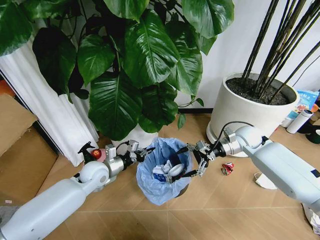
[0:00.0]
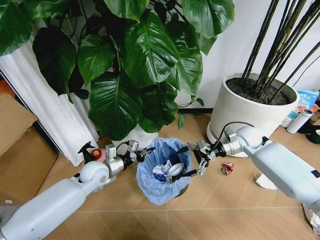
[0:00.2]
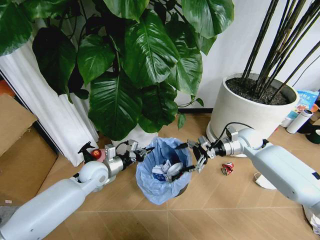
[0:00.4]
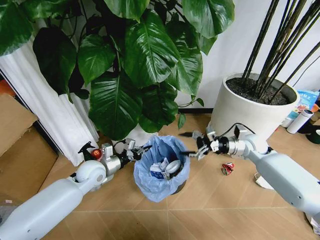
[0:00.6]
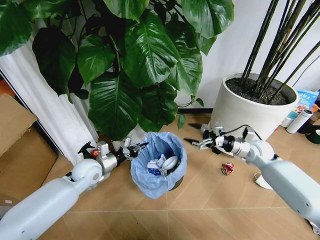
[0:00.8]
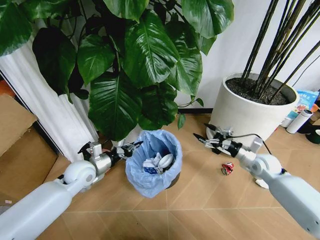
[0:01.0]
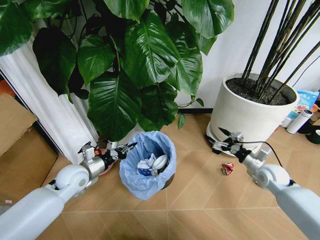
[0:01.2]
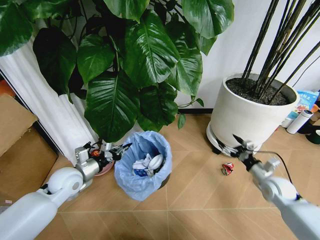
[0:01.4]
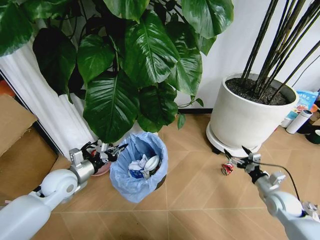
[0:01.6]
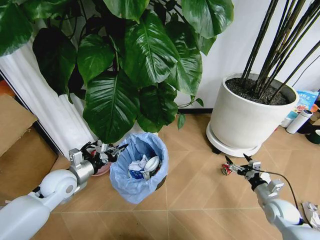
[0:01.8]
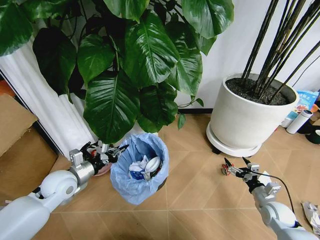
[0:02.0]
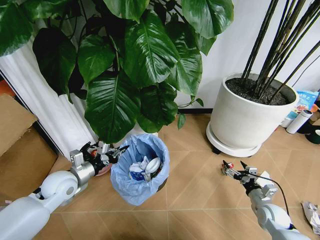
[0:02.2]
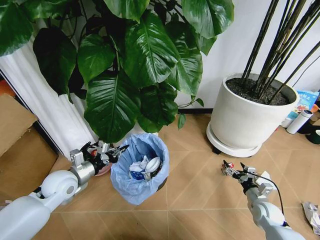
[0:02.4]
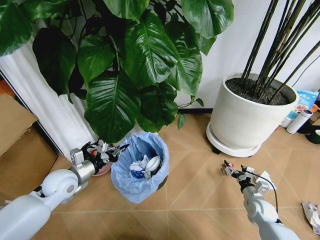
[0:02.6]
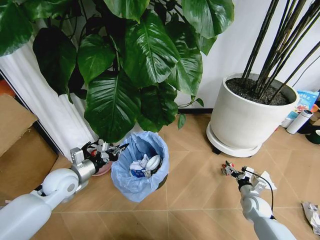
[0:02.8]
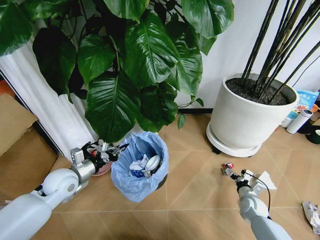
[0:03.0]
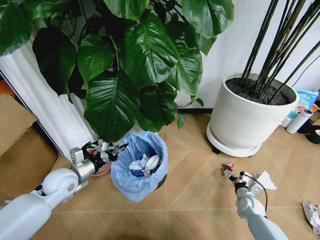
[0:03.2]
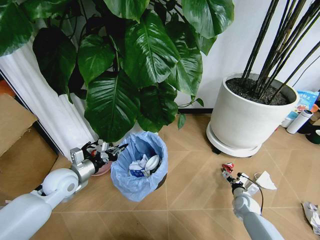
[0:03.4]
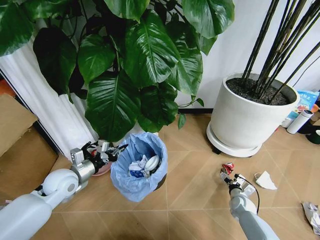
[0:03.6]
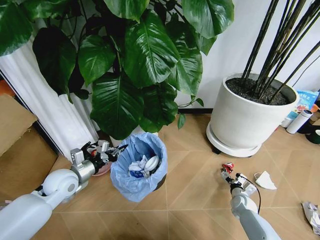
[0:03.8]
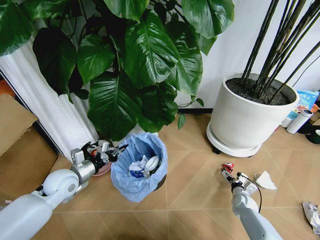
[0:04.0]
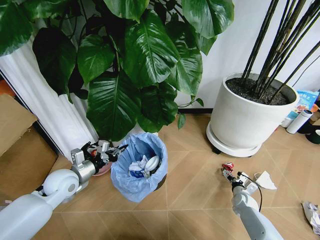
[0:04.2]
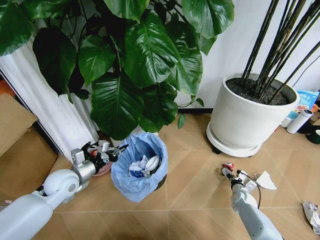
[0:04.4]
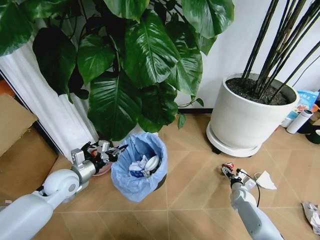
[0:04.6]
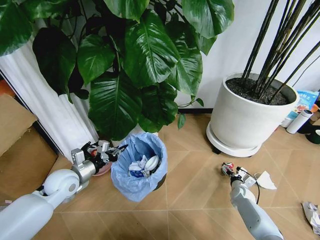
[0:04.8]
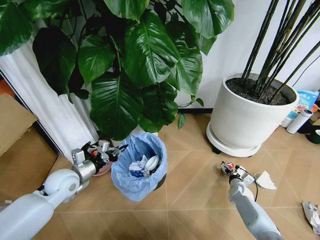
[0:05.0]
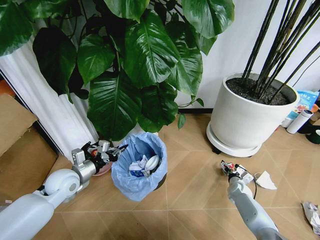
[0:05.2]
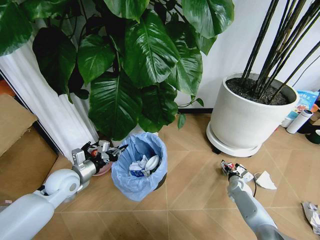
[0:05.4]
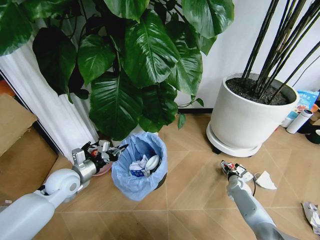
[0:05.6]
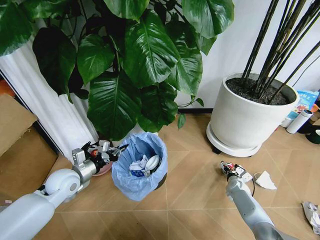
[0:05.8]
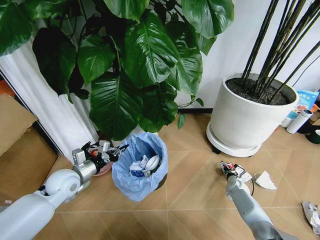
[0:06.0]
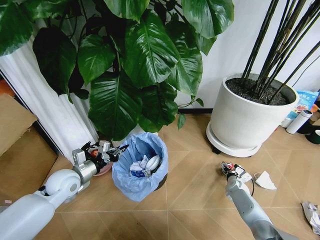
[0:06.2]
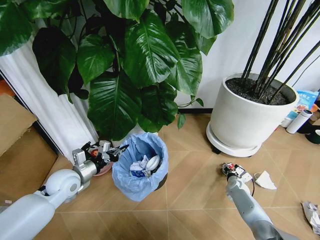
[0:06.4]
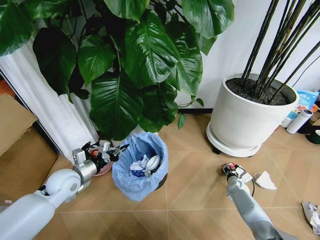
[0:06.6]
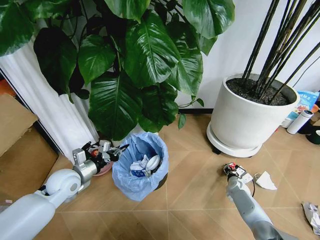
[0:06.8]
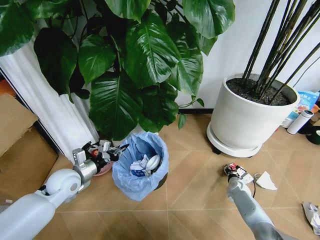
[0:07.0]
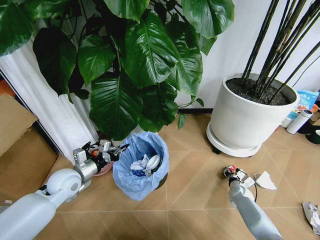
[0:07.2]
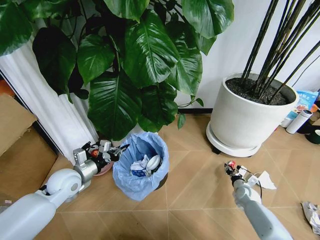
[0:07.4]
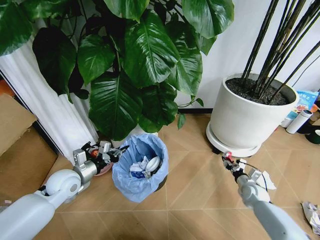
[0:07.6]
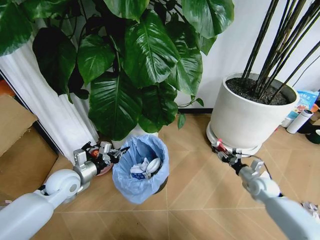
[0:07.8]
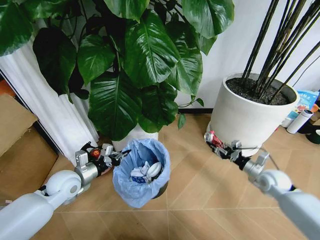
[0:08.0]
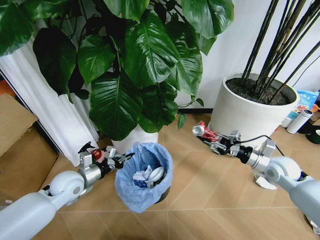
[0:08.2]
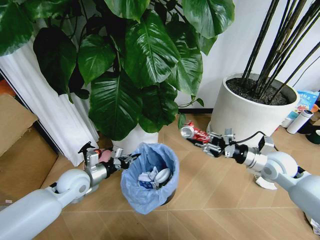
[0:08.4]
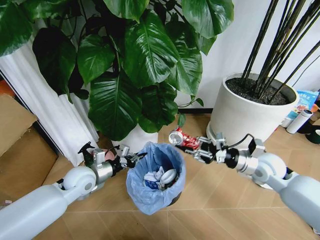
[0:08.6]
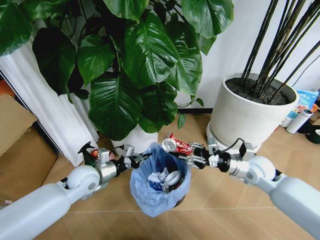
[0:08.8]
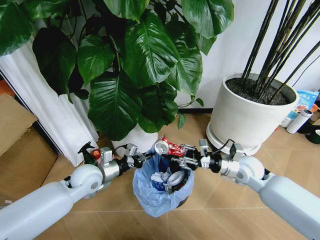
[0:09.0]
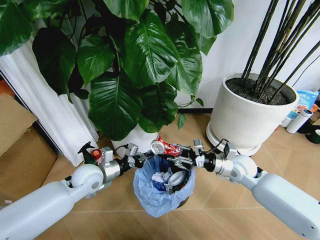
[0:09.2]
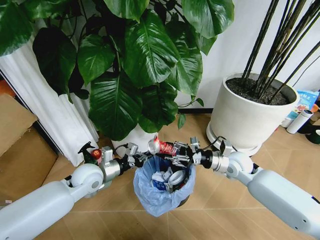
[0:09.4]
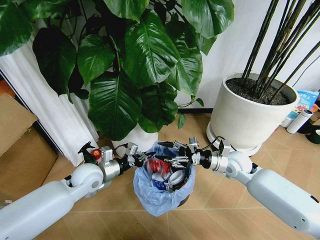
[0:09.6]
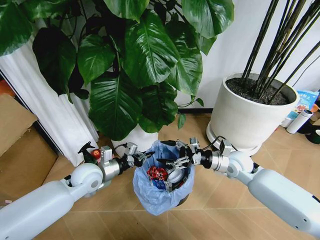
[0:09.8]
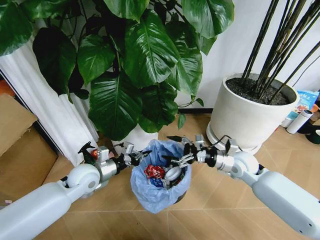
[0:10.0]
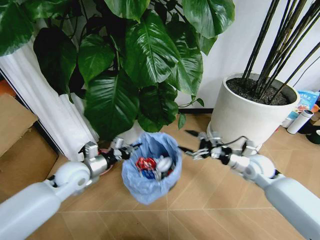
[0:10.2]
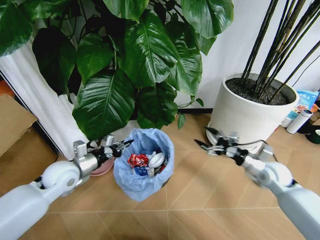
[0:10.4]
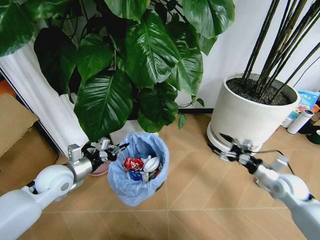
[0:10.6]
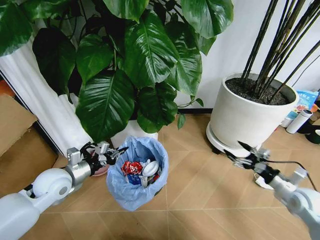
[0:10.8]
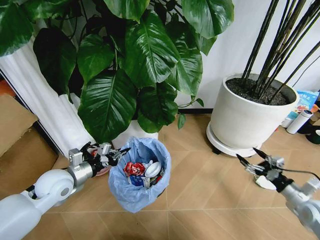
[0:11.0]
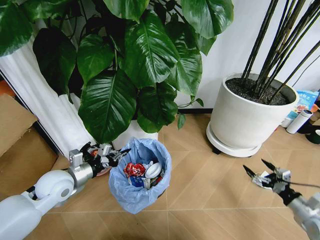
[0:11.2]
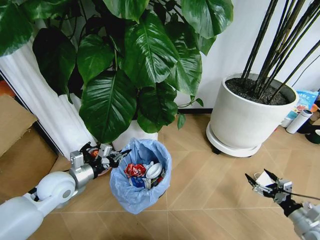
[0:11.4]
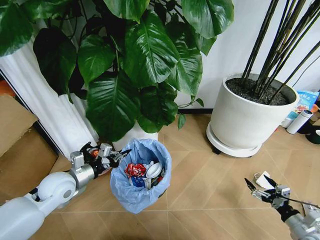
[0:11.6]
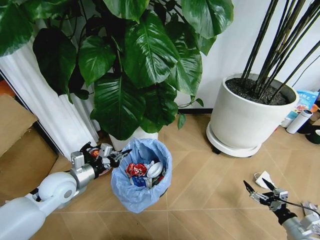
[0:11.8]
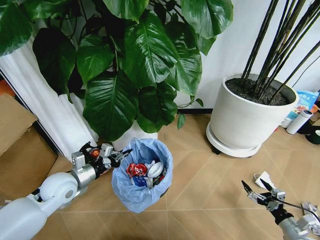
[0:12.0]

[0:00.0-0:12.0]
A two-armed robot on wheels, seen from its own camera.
Task of the whole recording: Pick up the trash bin and place the garbage on the floor into it.
0:00.0 to 0:01.6: The left gripper travels to the left by some 10 cm. Meanwhile the right gripper travels backward, downward and to the right by about 25 cm.
0:01.6 to 0:03.0: The right gripper moves downward, approximately 10 cm.
0:03.0 to 0:04.4: The right gripper shifts roughly 5 cm downward.
0:04.4 to 0:06.0: The right gripper heads forward, covering some 5 cm.
0:06.0 to 0:07.6: The right gripper goes some 5 cm upward, and closes up.
0:07.6 to 0:09.0: The right gripper goes approximately 25 cm upward and to the left. Meanwhile the left gripper travels to the right by approximately 5 cm.
0:09.0 to 0:10.4: The right gripper is displaced to the right by roughly 10 cm, and opens its fingers; the left gripper shifts roughly 5 cm to the left.
0:10.4 to 0:12.0: The right gripper travels backward, downward and to the right by about 25 cm.

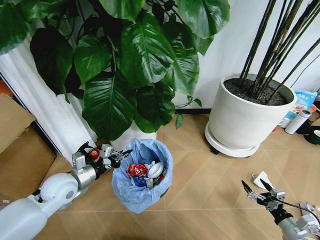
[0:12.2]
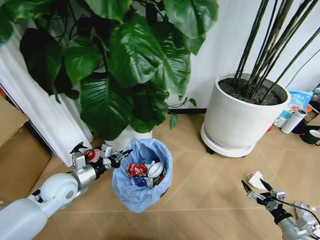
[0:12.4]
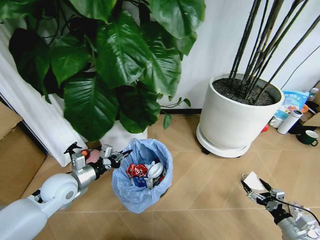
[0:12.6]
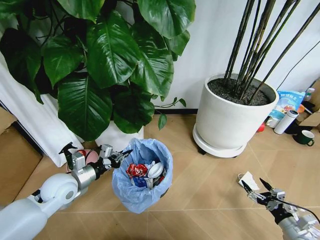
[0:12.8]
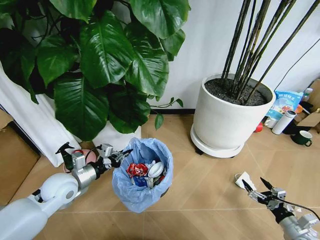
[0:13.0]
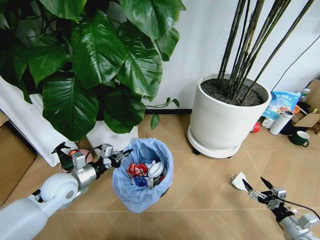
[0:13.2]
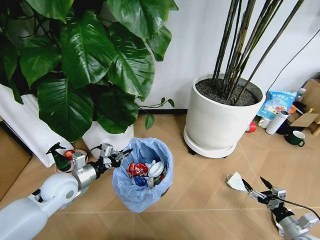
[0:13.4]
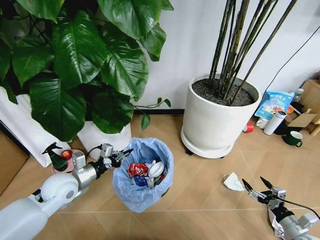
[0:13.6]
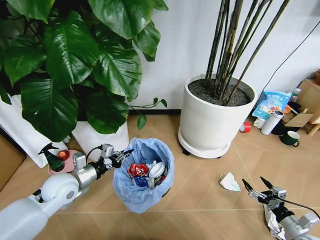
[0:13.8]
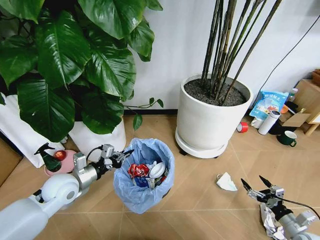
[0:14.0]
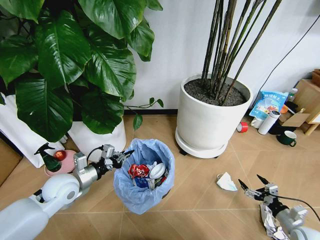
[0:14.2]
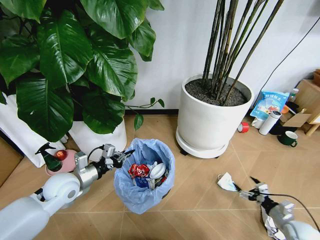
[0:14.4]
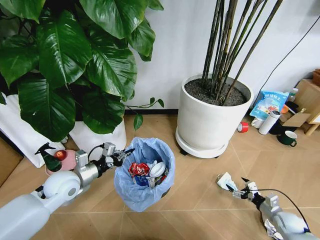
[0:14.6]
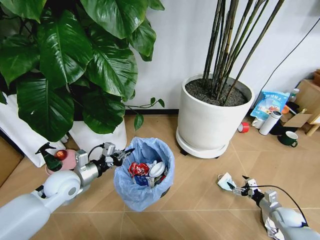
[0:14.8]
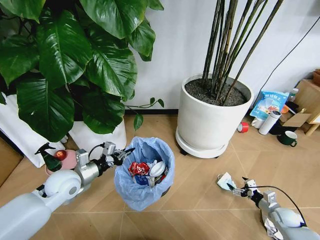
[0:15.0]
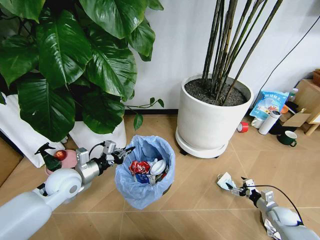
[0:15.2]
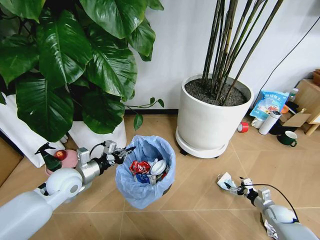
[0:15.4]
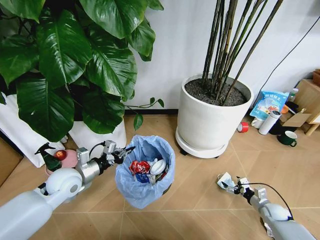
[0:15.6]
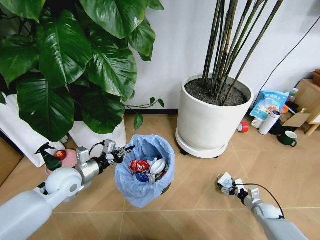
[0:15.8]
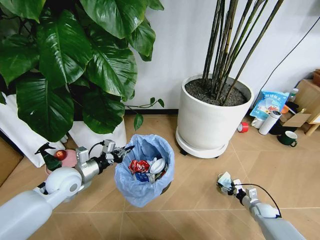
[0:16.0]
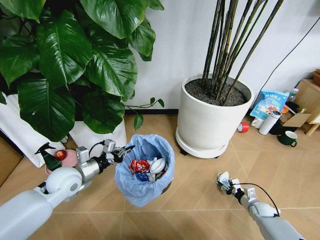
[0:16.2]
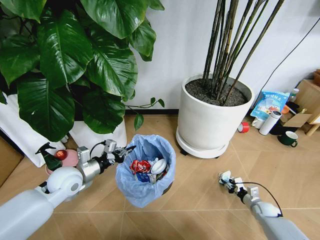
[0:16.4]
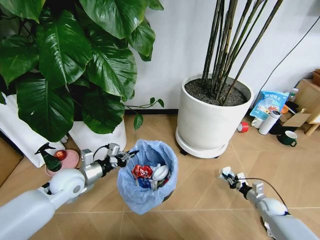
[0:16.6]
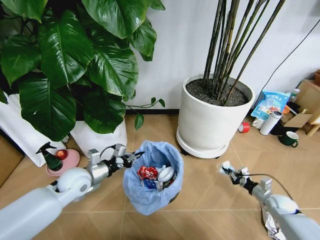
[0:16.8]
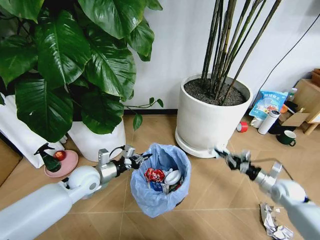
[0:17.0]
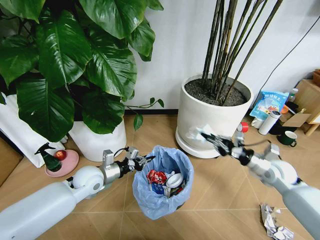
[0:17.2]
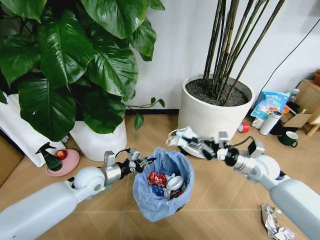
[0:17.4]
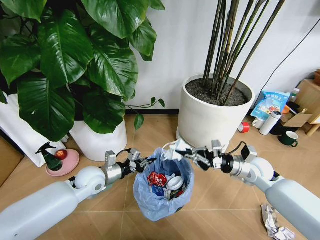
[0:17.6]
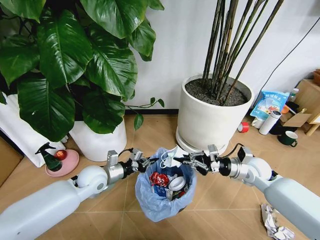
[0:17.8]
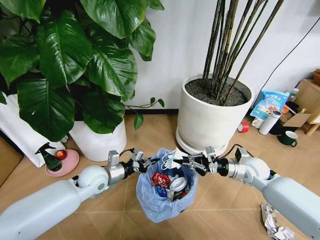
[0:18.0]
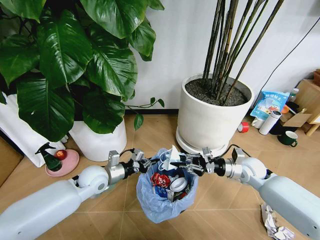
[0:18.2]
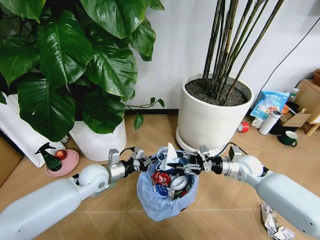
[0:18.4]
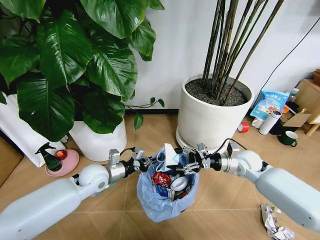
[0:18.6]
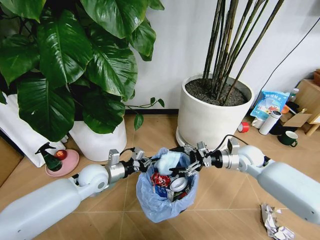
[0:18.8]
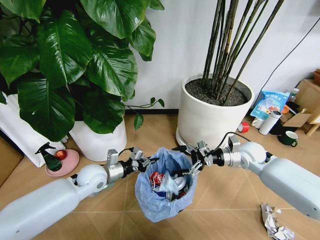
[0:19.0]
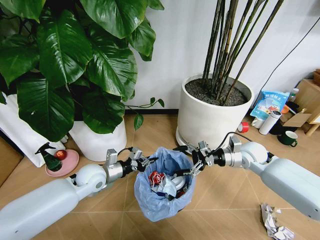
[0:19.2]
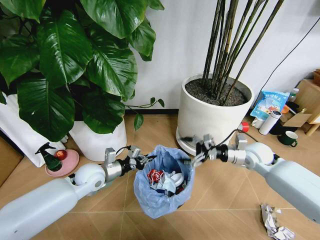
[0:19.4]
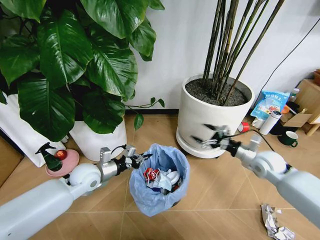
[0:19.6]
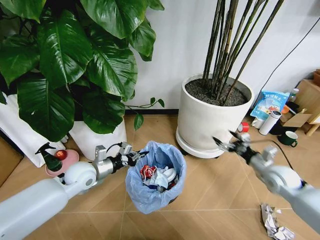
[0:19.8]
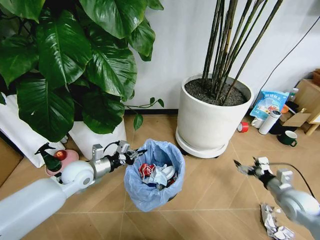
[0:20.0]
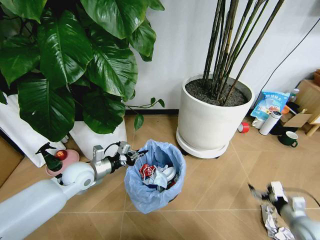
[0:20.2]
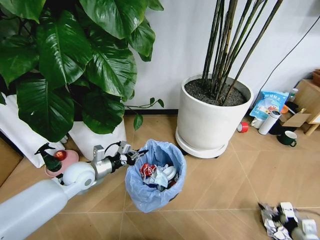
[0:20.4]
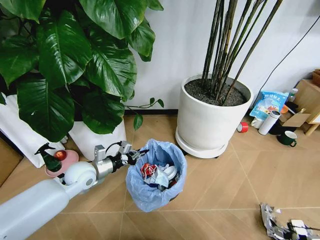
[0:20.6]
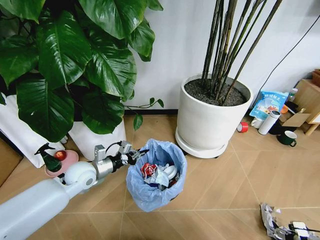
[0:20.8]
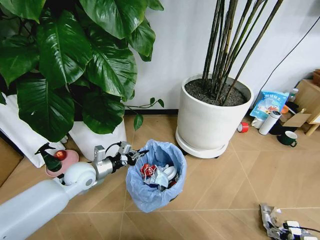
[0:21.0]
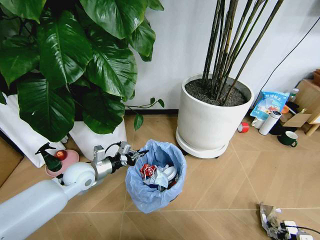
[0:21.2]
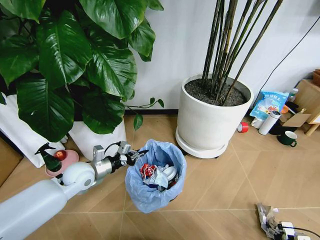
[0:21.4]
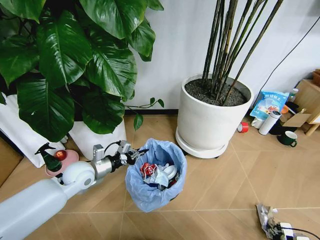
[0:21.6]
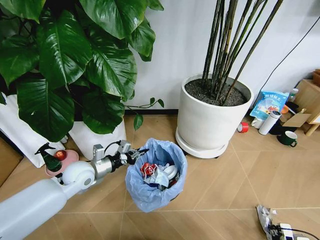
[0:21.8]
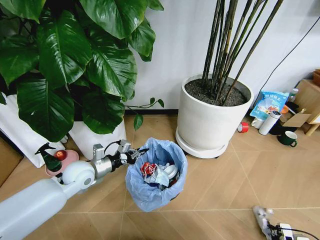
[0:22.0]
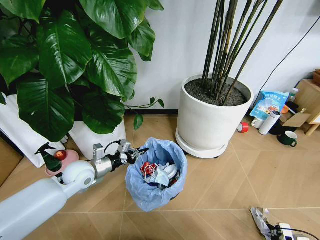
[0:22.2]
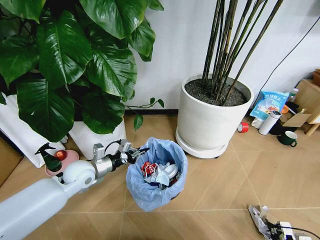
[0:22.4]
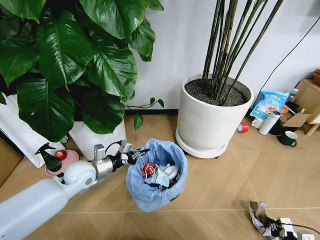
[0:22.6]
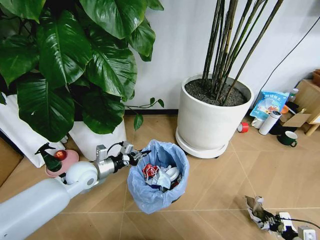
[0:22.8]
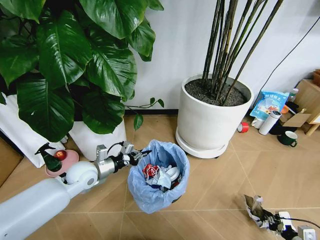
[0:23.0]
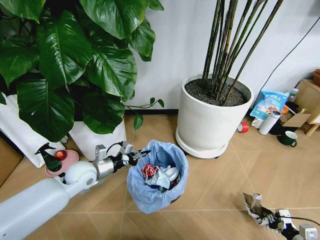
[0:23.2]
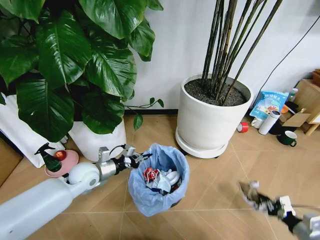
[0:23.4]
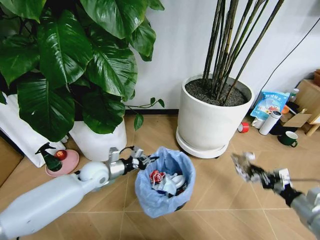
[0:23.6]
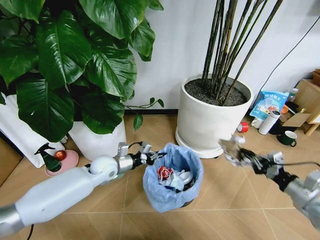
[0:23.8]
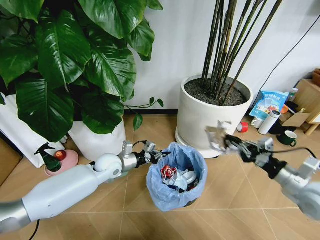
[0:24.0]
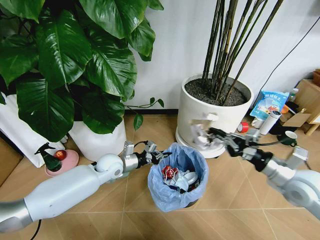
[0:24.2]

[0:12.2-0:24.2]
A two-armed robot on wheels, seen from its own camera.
Task of the whole recording: Pick up the trash bin and place the garbage on the floor into it.
0:13.8 to 0:15.2: The right gripper heads forward and downward, covering roughly 15 cm.
0:15.2 to 0:16.6: The right gripper closes up.
0:16.6 to 0:18.2: The right gripper travels upward and to the left by some 25 cm. The left gripper travels to the right by approximately 5 cm.
0:18.2 to 0:19.8: The right gripper heads to the right, covering roughly 10 cm, and opens up.
0:19.8 to 0:21.2: The right gripper travels backward, downward and to the right by approximately 35 cm.
0:21.2 to 0:22.6: The right gripper closes.
0:22.6 to 0:24.2: The left gripper travels to the right and forward by some 10 cm, while the right gripper is displaced upward, forward and to the left by approximately 35 cm.
